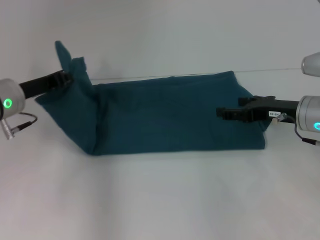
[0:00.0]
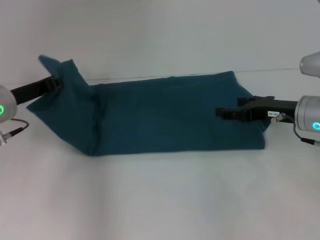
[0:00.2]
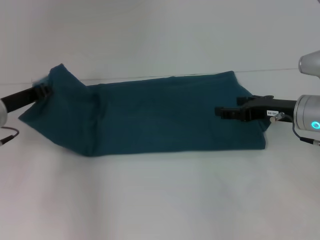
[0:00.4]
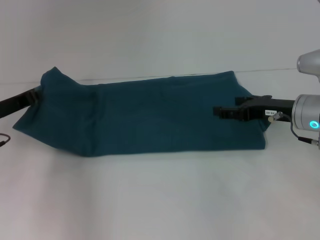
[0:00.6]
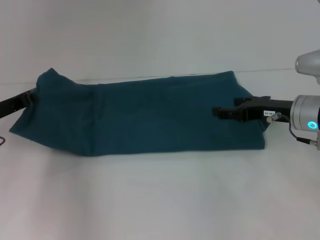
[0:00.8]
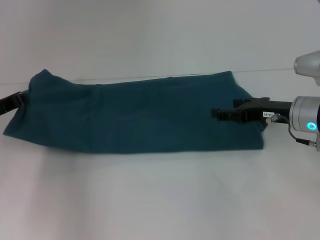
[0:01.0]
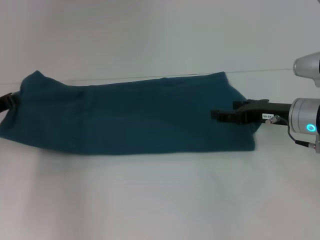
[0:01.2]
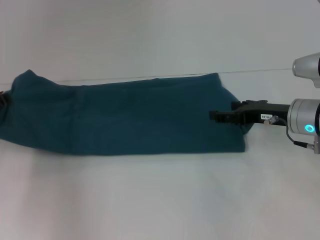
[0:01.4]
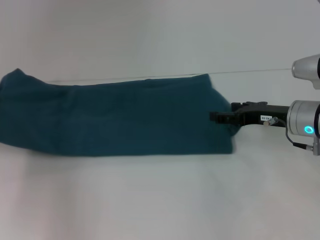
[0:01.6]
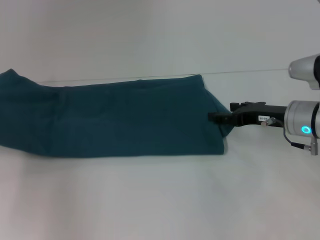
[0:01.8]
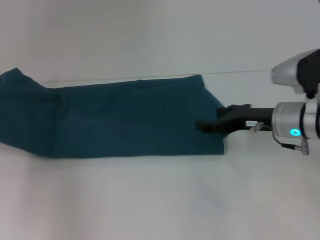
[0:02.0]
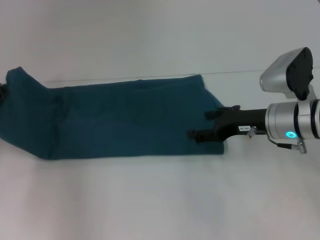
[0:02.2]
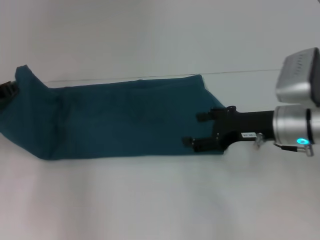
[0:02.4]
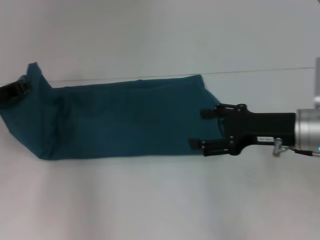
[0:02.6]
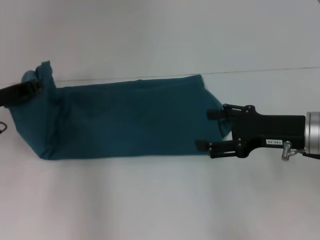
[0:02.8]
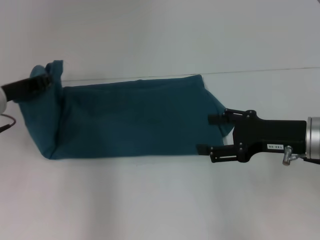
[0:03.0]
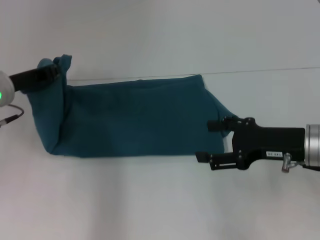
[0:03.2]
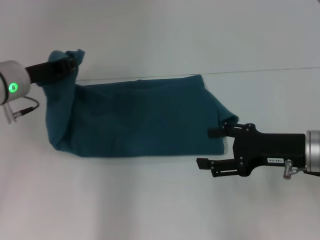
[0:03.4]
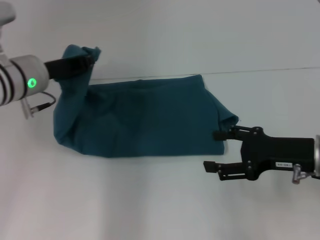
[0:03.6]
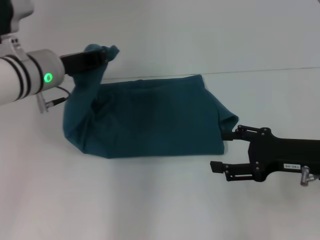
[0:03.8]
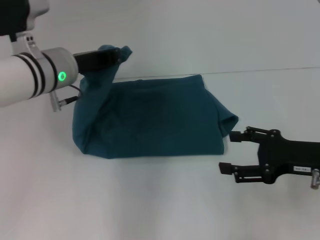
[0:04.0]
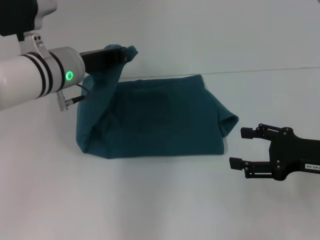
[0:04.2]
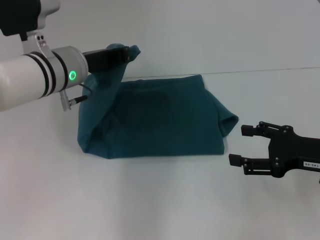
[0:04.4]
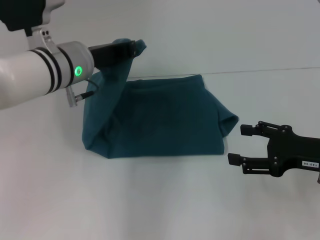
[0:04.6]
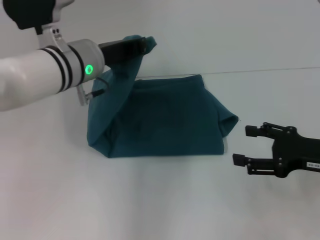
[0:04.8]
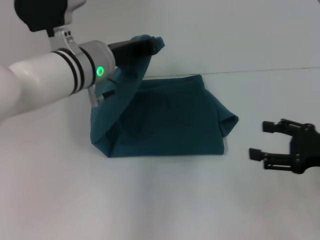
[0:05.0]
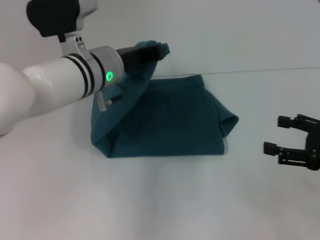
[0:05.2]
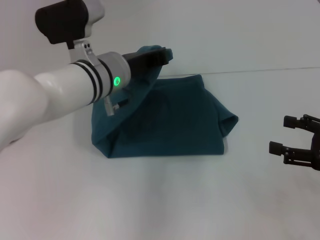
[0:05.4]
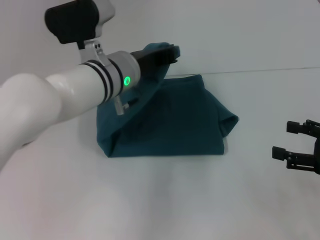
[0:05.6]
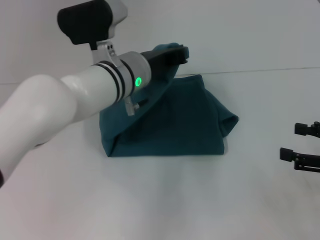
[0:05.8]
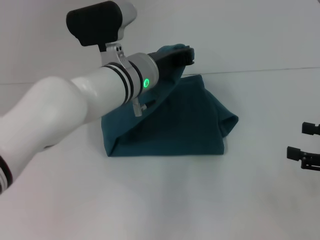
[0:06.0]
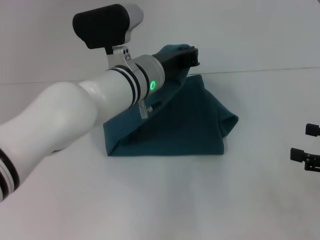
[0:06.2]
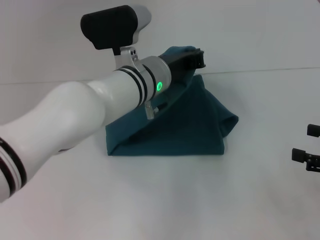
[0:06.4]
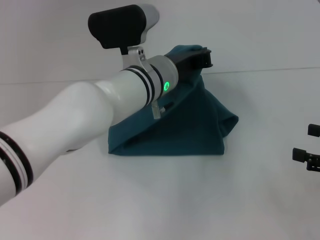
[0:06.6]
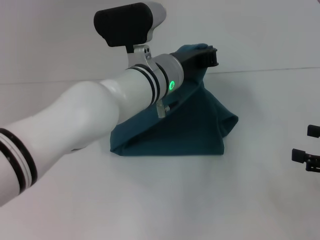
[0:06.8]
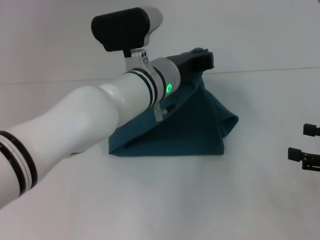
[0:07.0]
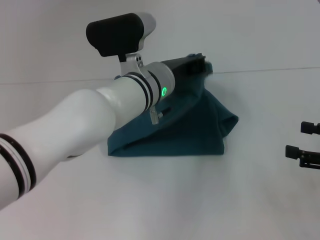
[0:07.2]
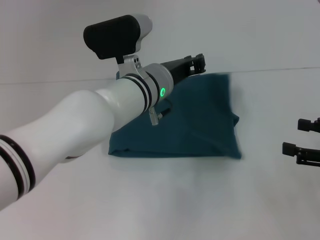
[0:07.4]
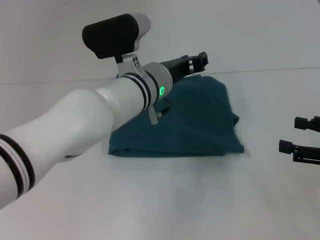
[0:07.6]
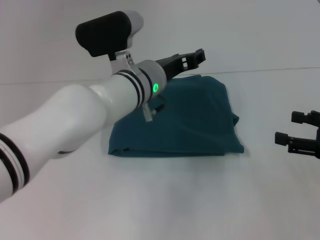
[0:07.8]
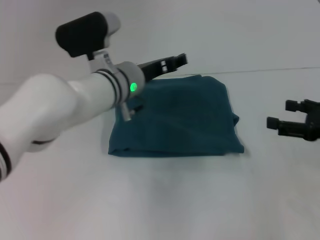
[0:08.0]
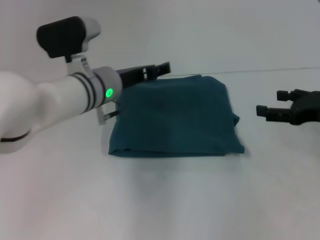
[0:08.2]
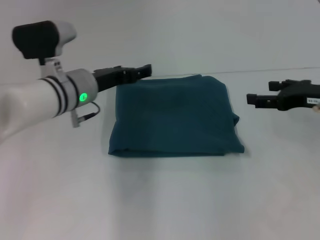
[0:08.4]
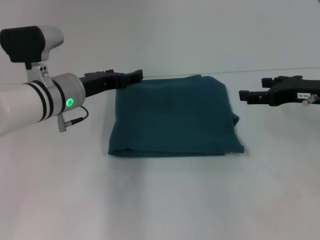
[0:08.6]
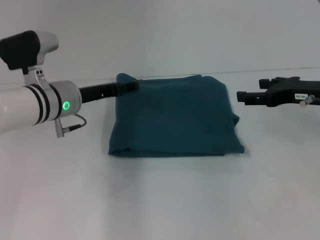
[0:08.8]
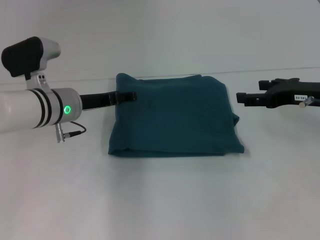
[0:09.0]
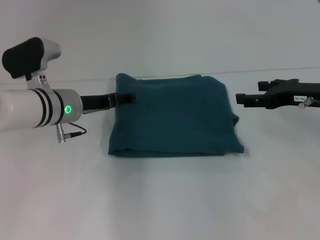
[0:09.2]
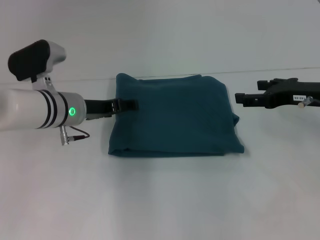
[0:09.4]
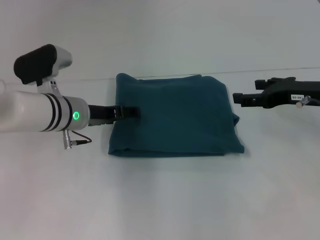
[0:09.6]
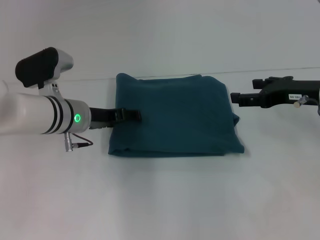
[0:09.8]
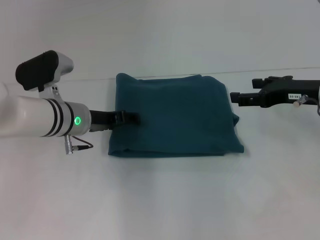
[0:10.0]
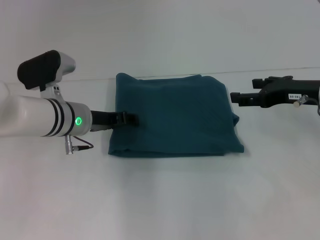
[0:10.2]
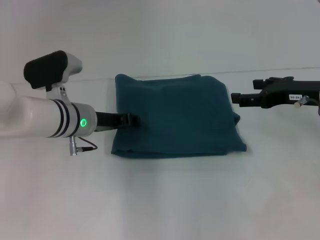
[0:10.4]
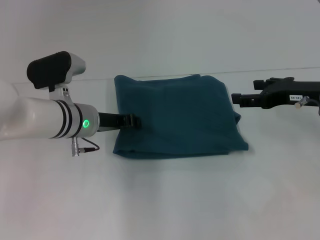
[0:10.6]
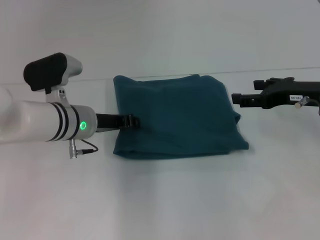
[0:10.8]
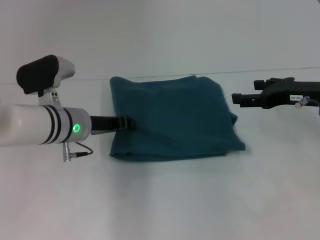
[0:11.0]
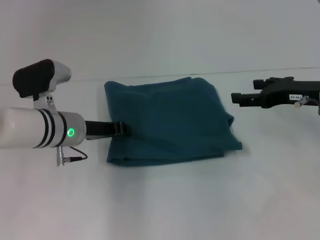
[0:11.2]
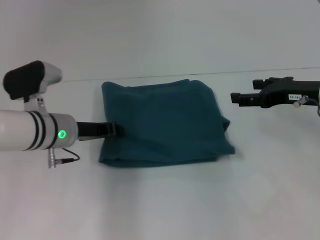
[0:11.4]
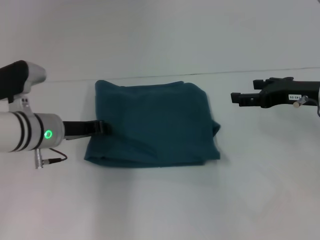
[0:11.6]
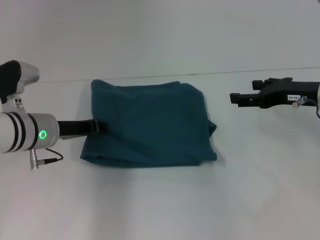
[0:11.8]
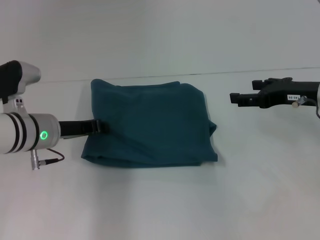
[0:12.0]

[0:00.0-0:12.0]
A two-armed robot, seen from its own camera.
Step, 0:00.0 to 0:07.6: Fold the clothes to the left.
0:00.0 to 0:01.6: The left gripper is displaced to the left by approximately 10 cm.
0:01.6 to 0:03.0: The right gripper is displaced backward by approximately 5 cm. Meanwhile the left gripper moves to the right, some 10 cm.
0:03.0 to 0:04.4: The right gripper shifts by some 5 cm. Meanwhile the left gripper goes about 10 cm to the right.
0:04.4 to 0:06.0: Both grippers move to the right, approximately 10 cm.
0:07.6 to 0:09.0: The right gripper heads forward and to the left, covering roughly 15 cm; the left gripper is displaced to the left by some 15 cm, and opens its fingers.
0:09.0 to 0:10.4: The grippers move only a little.
0:10.4 to 0:12.0: The left gripper goes approximately 5 cm to the left, and closes up.

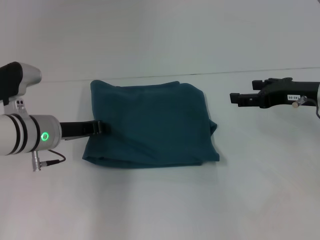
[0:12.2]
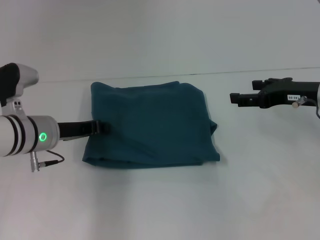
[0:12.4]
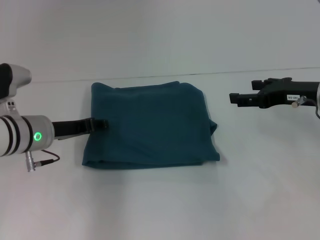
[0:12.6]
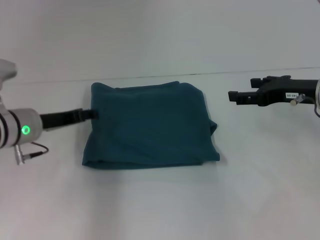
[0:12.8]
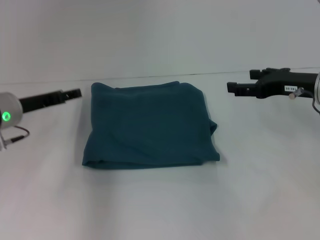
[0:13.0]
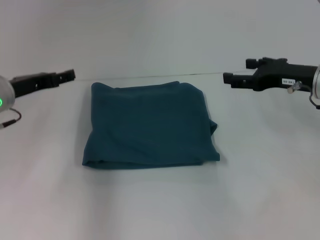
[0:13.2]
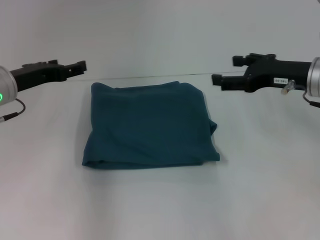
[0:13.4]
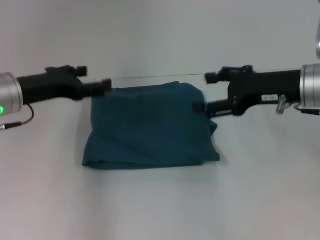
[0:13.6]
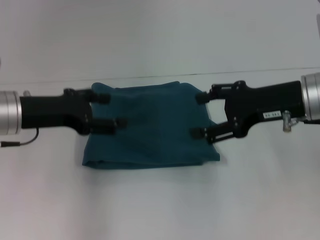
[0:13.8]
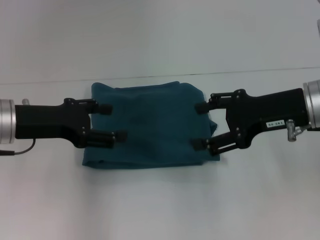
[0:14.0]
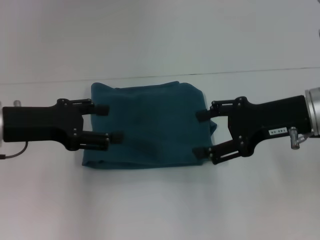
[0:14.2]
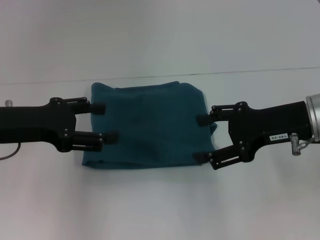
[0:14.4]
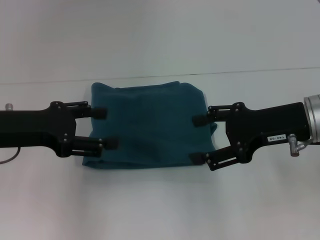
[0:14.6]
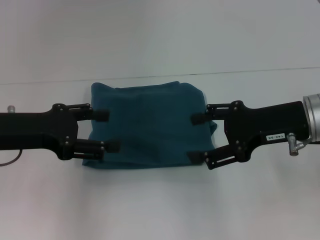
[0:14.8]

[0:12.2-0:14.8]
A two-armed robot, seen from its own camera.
0:12.2 to 0:13.4: The left gripper goes approximately 10 cm upward and to the left, and opens up.
0:13.4 to 0:14.8: The grippers both shift backward by about 5 cm.

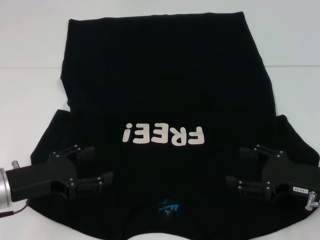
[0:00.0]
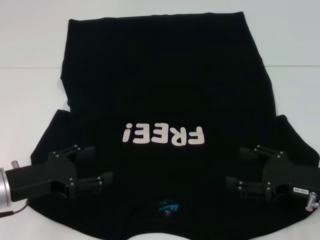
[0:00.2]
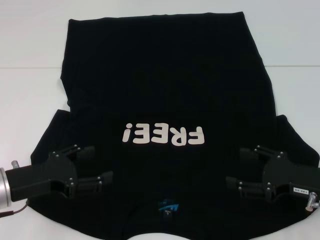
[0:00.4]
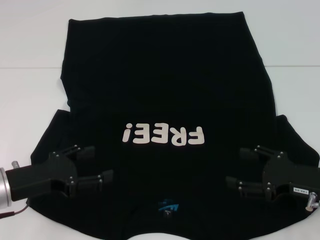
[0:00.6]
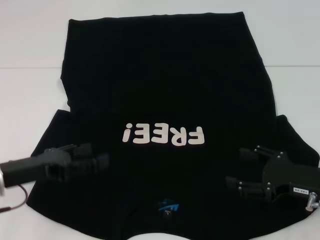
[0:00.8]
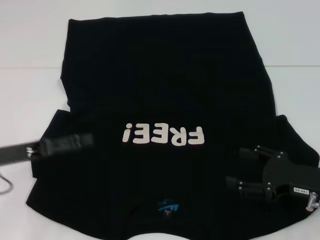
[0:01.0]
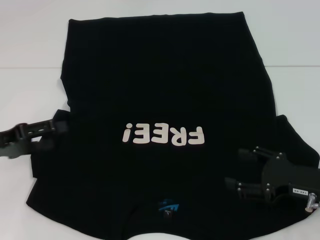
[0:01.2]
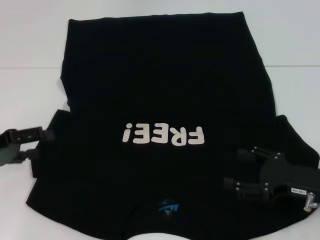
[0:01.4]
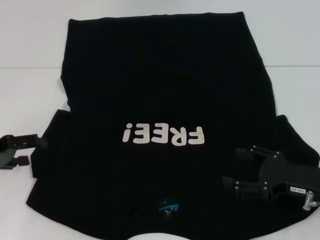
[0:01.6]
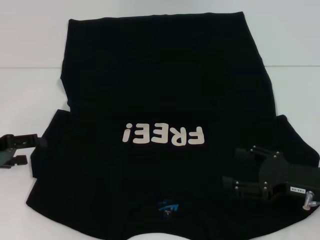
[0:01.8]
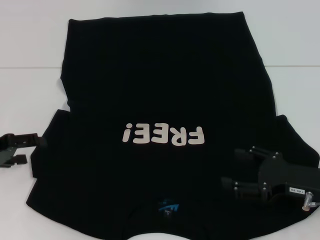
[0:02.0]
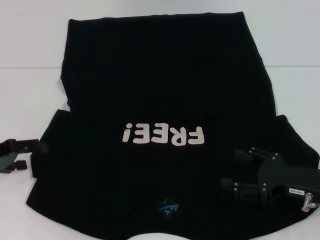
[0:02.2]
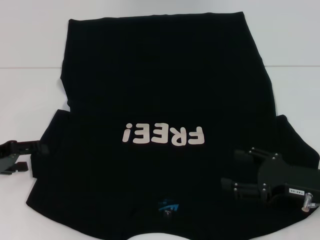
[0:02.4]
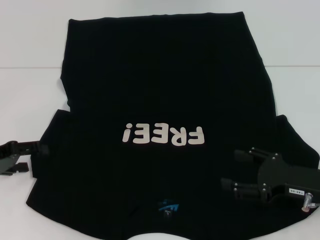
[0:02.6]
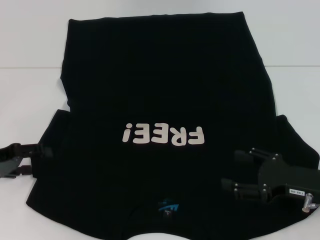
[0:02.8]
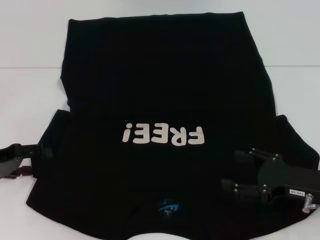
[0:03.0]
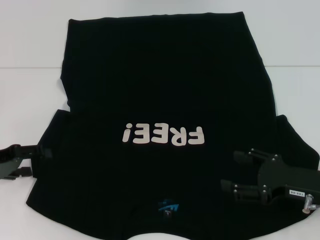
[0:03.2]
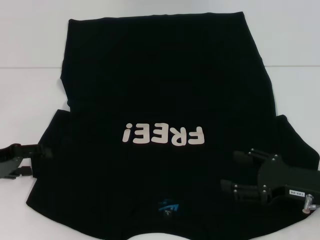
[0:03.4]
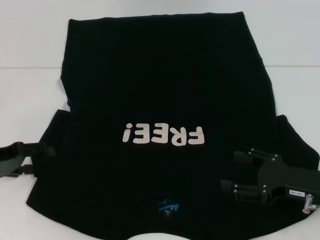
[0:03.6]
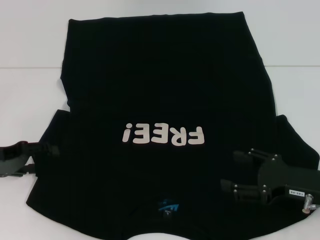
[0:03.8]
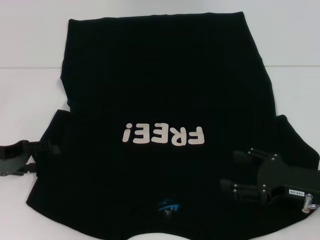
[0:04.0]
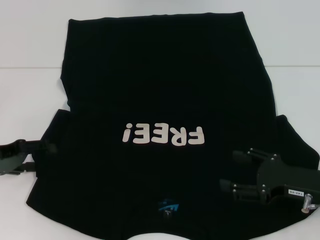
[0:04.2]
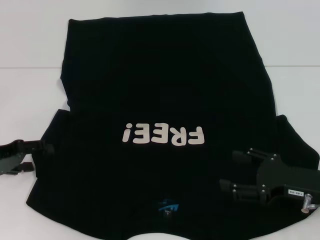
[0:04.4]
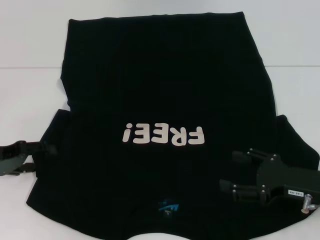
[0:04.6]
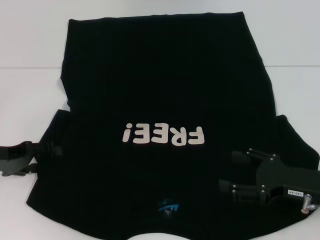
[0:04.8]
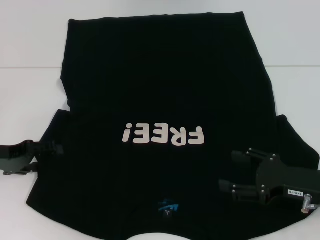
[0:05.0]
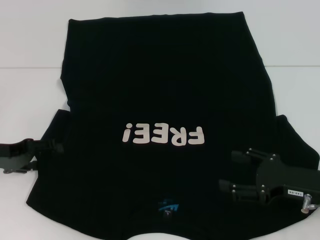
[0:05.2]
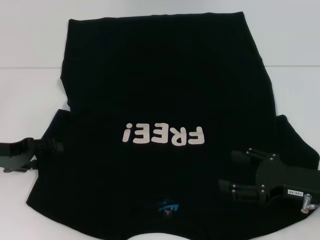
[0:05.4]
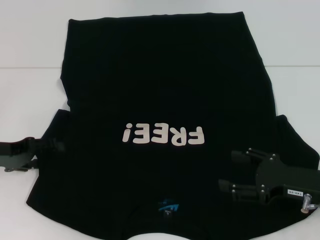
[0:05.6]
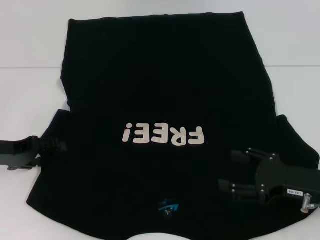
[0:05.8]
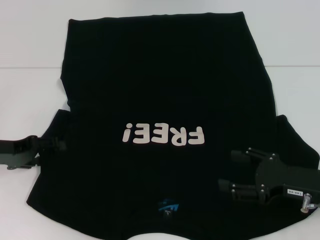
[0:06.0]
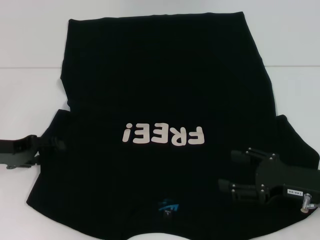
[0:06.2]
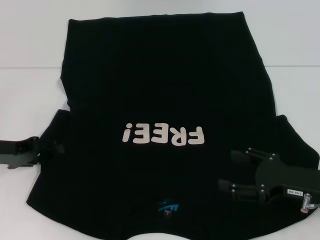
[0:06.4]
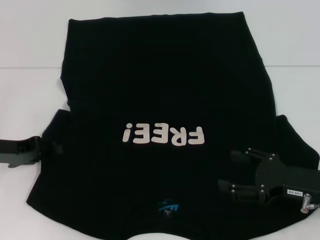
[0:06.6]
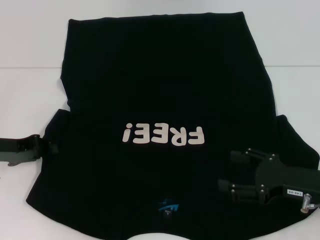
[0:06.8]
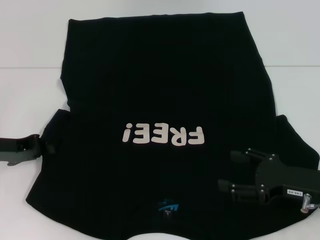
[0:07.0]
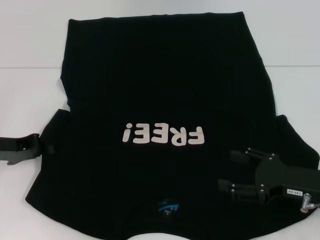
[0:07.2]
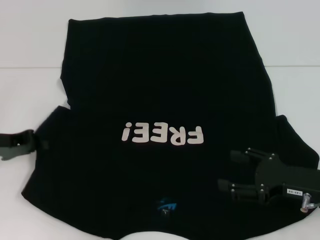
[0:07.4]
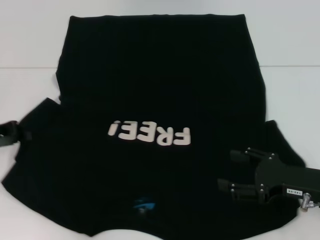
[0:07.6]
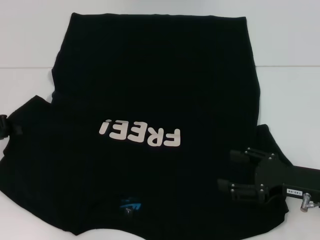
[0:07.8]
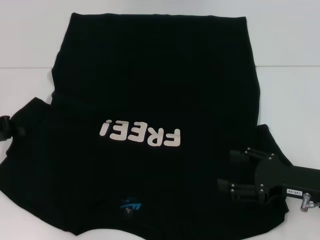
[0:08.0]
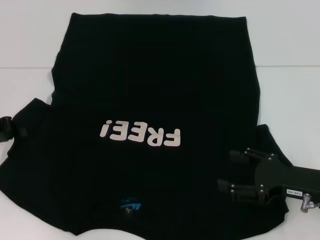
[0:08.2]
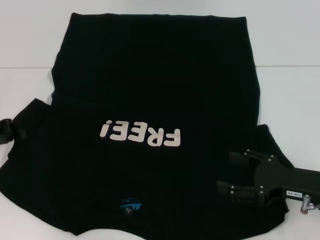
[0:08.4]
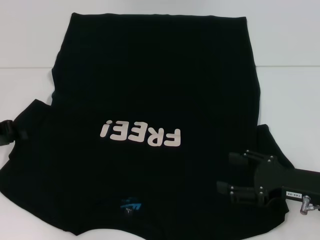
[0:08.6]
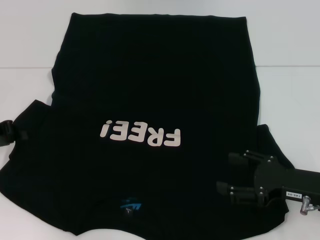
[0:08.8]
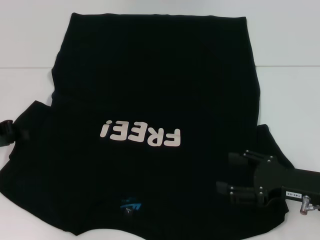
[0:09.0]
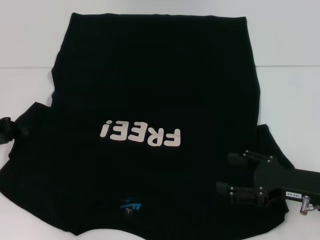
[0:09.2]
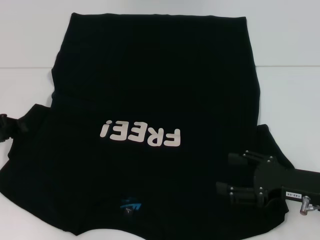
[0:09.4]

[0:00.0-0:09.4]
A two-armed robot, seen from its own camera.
0:00.0 to 0:01.6: The left gripper goes some 10 cm to the left.
0:01.6 to 0:04.8: The grippers stay close to where they were, moving slightly.
0:04.8 to 0:06.2: The two grippers keep their place.
0:06.2 to 0:07.8: The left gripper closes its fingers.
0:07.8 to 0:09.4: There are only small adjustments of the grippers.
